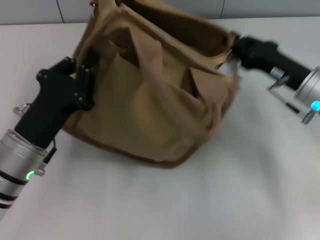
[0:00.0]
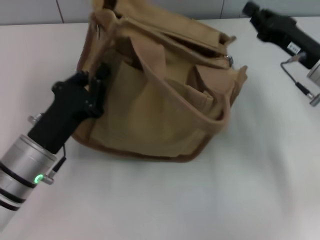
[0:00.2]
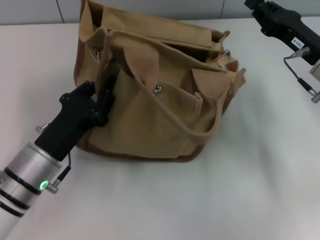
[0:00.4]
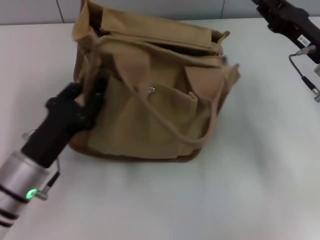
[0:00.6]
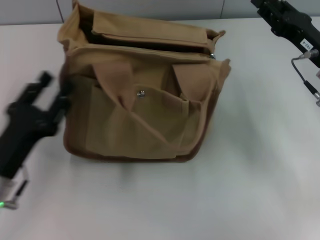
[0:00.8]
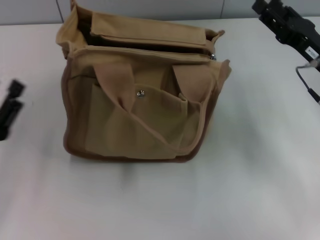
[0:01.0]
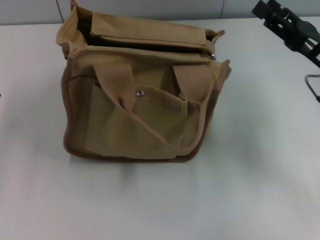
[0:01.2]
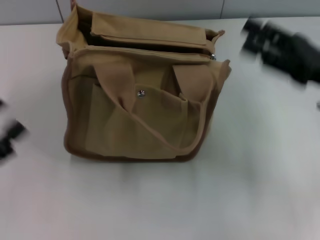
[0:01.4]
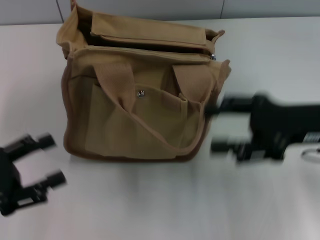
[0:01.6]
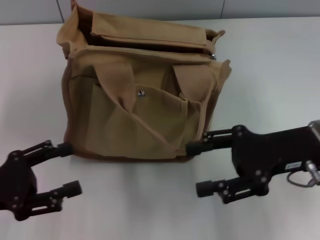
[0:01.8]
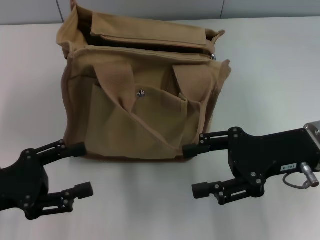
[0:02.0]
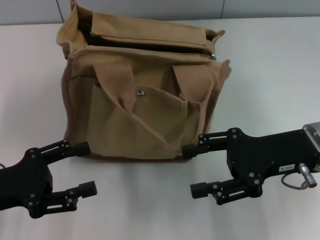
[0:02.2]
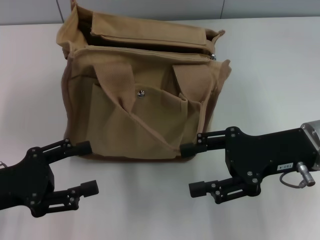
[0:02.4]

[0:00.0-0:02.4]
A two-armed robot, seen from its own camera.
0:00.0 to 0:01.2: The right gripper opens; the left gripper is displaced to the left and backward by roughly 15 cm, and opens.
0:01.2 to 0:02.4: The left gripper moves roughly 5 cm. The right gripper moves to the left, roughly 5 cm.

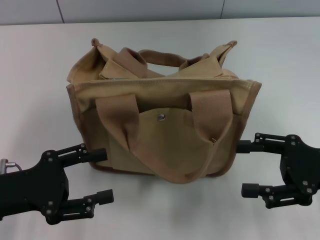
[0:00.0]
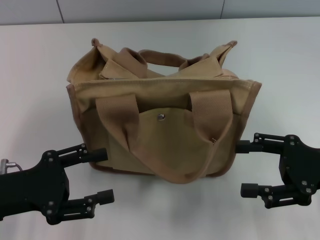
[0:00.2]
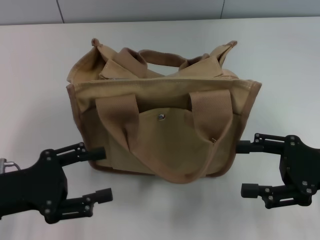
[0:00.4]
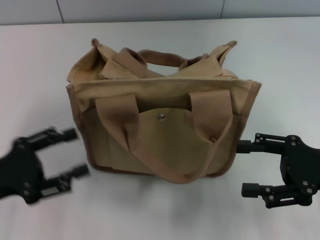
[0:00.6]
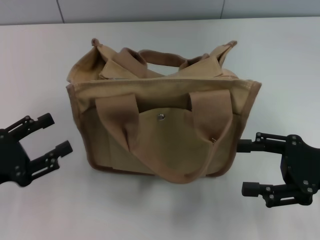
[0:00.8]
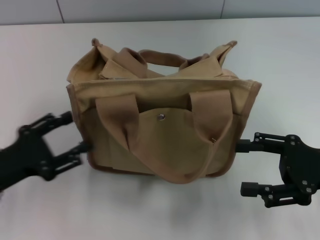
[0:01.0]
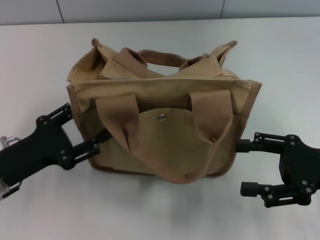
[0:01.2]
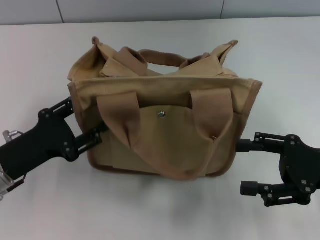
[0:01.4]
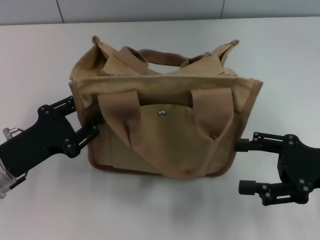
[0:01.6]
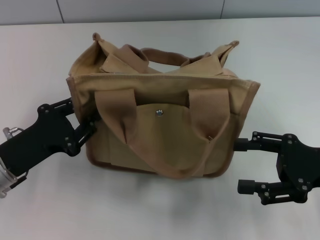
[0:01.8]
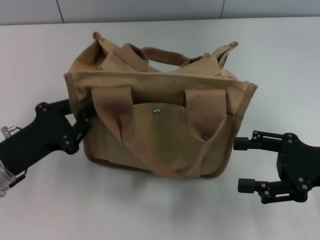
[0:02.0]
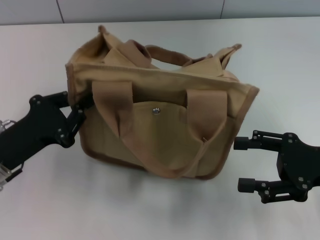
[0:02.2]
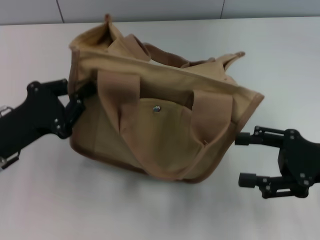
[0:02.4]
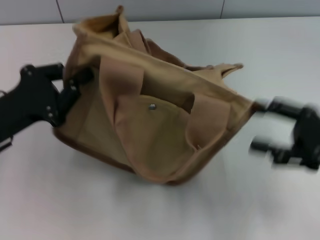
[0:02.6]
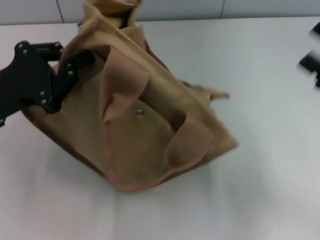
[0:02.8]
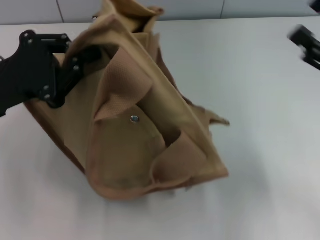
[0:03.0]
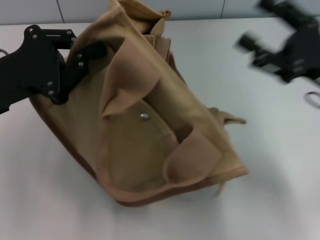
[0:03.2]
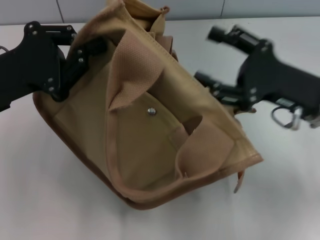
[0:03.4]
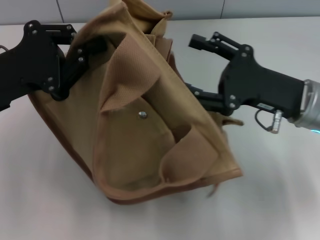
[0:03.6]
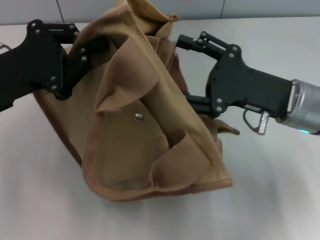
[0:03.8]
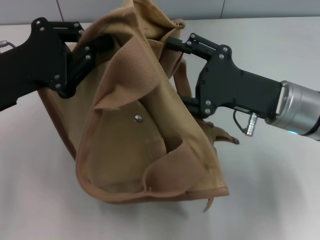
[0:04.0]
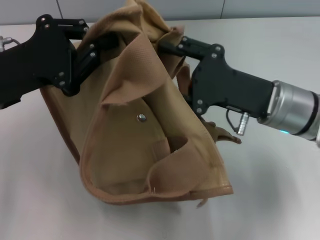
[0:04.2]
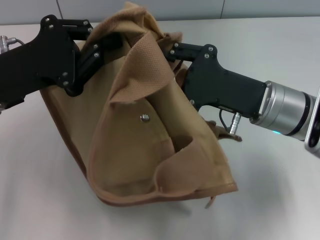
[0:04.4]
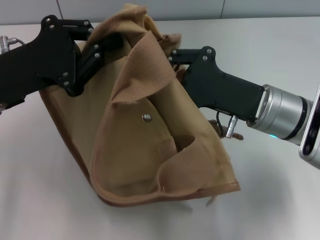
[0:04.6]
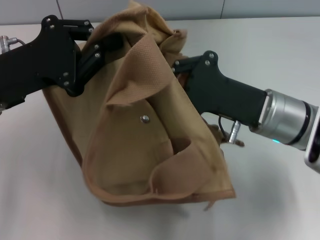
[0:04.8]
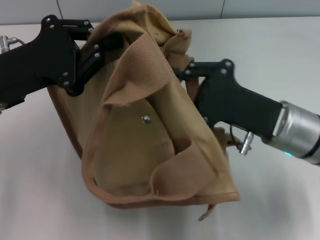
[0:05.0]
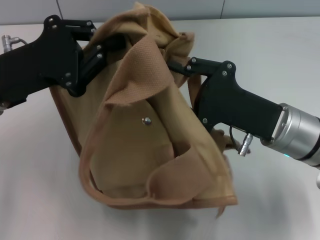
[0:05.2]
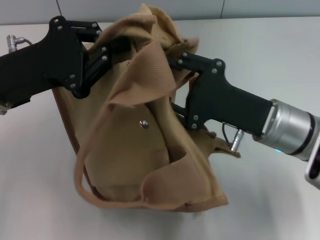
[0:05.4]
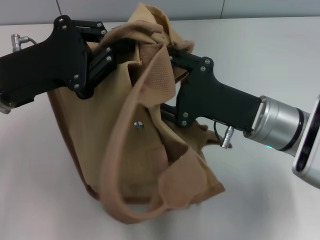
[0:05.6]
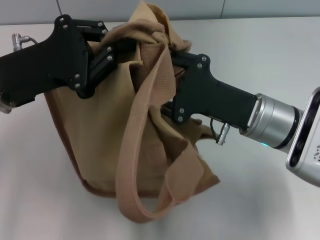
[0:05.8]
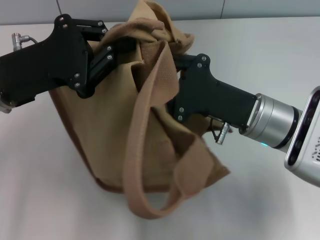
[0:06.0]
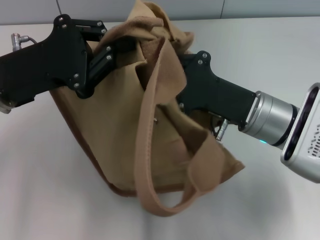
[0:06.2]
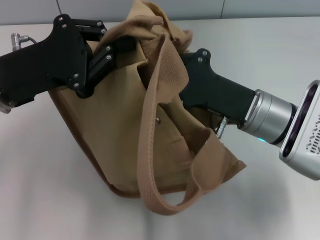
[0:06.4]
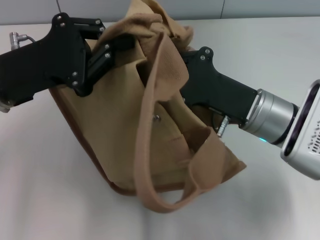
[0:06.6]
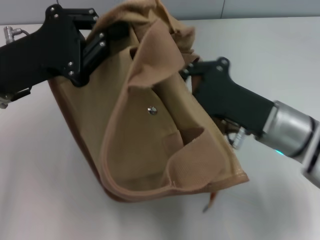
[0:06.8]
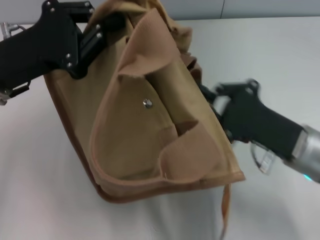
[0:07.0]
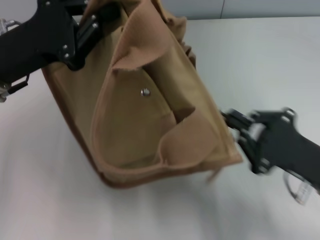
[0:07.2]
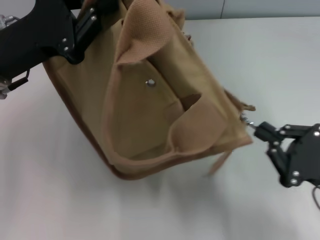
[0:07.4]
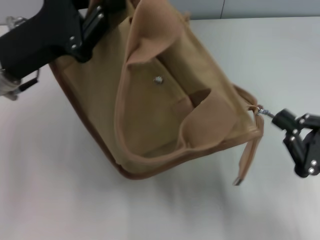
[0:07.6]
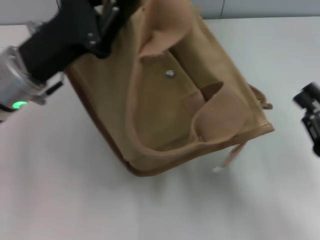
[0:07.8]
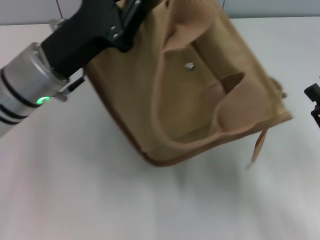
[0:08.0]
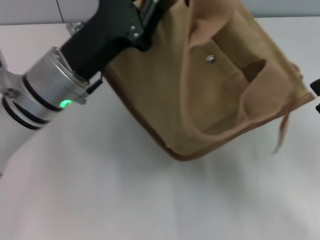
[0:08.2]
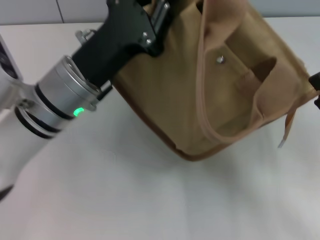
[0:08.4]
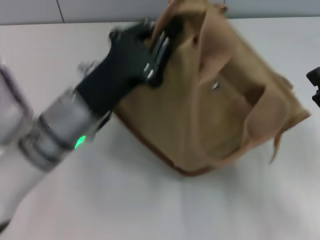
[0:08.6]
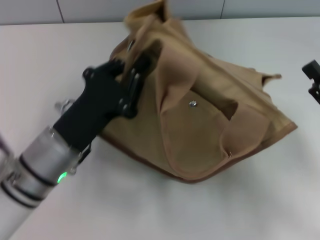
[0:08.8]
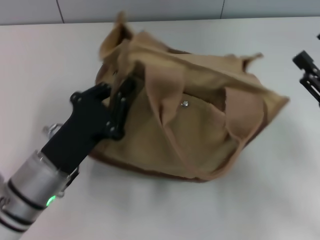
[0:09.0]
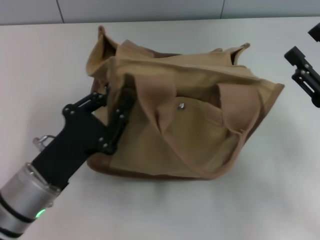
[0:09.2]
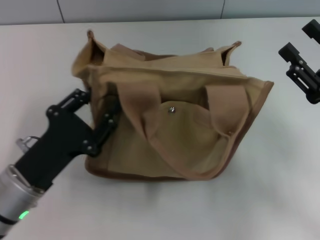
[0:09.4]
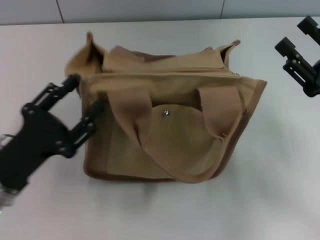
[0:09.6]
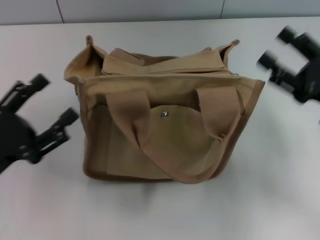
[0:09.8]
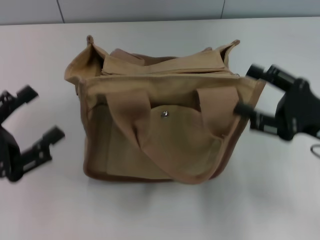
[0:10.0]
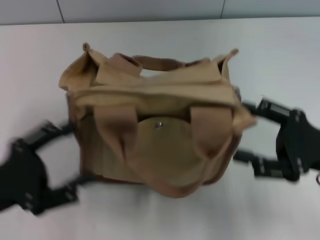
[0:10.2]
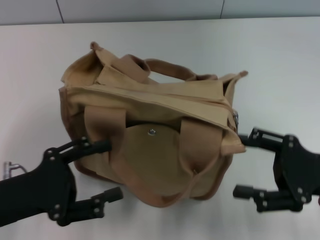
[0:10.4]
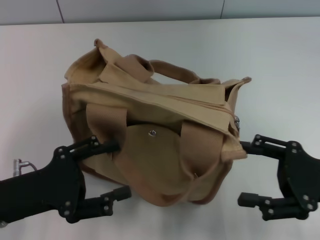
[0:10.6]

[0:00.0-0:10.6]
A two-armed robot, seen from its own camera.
Step, 0:00.0 to 0:07.6: Pull open the zipper with your right hand.
Step, 0:07.8 to 0:09.6: Grab the bag with your left hand.
0:01.6 to 0:03.0: The left gripper travels upward by about 10 cm, and closes its fingers. The right gripper shifts by about 5 cm.
0:03.0 to 0:04.6: The right gripper travels to the left by approximately 15 cm, and closes its fingers.
0:06.0 to 0:07.6: The right gripper is displaced to the right and backward by about 15 cm, and closes.
0:07.6 to 0:09.0: The right gripper moves roughly 5 cm, and opens up. Meanwhile the left gripper is displaced downward and backward by approximately 15 cm.
0:09.0 to 0:10.6: The left gripper shifts roughly 10 cm to the left, and opens up.

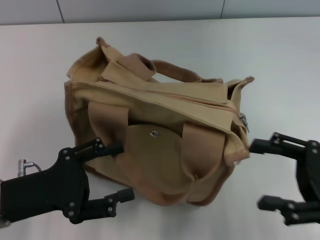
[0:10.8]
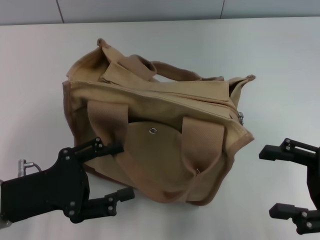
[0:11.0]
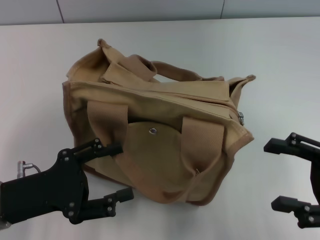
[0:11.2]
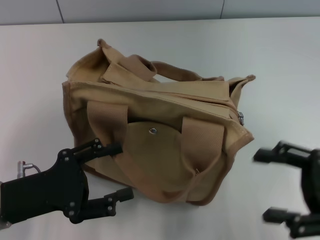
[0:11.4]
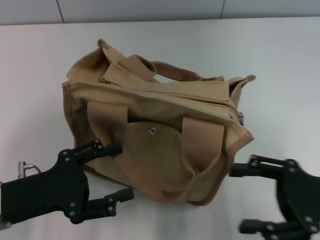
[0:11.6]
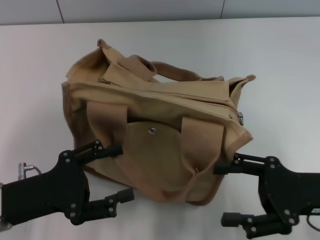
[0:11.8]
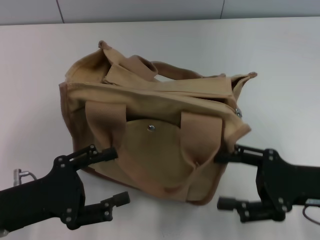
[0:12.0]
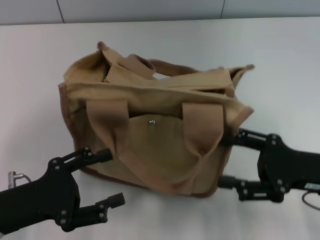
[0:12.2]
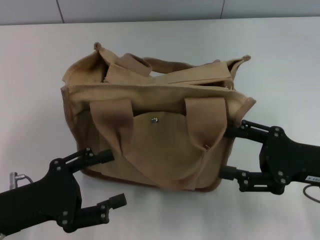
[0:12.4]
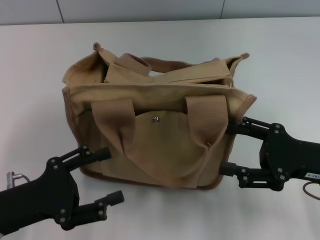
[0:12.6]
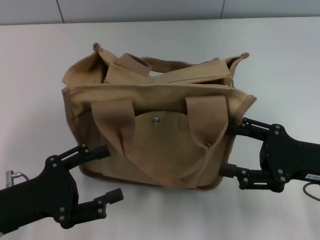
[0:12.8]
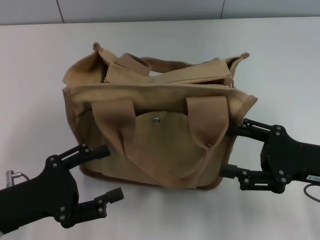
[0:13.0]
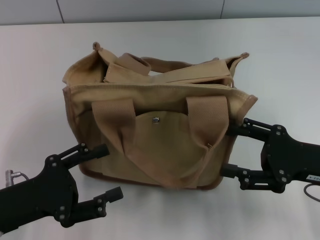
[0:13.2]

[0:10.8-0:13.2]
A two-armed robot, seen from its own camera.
0:10.8 to 0:12.0: The grippers make only small movements.
